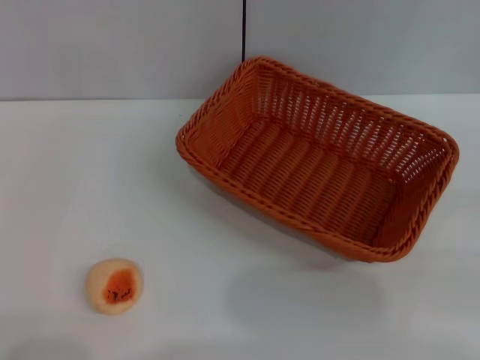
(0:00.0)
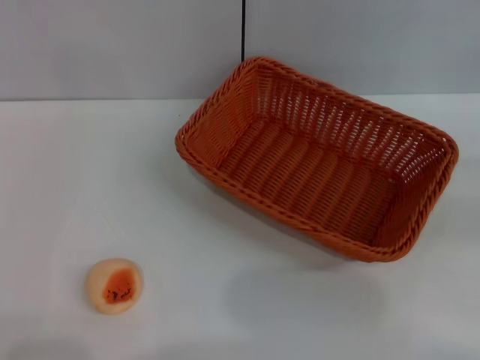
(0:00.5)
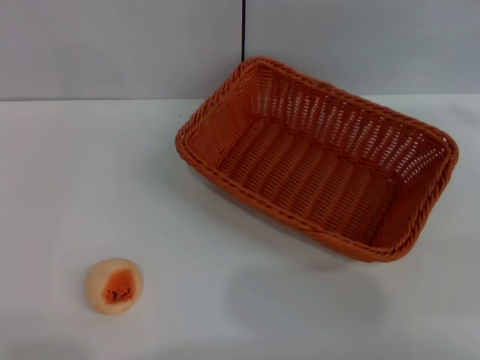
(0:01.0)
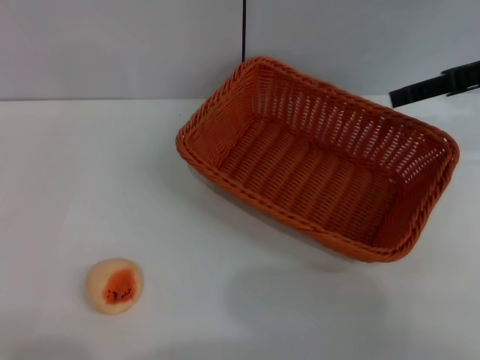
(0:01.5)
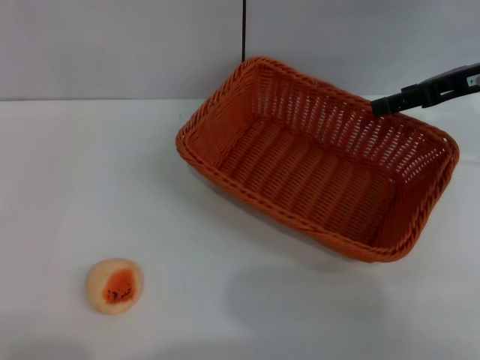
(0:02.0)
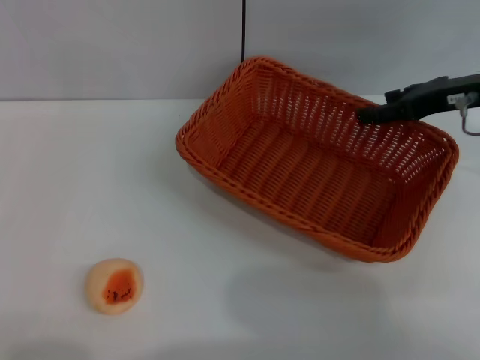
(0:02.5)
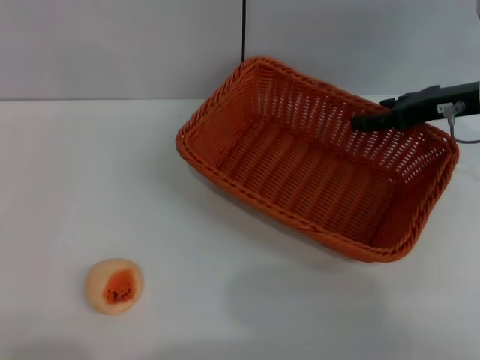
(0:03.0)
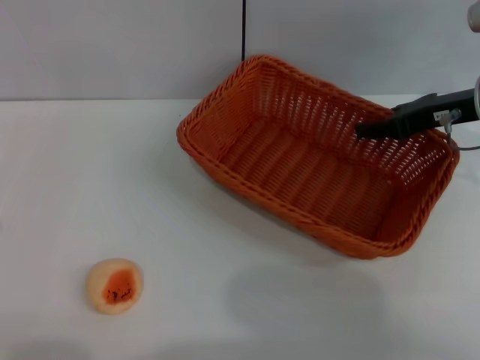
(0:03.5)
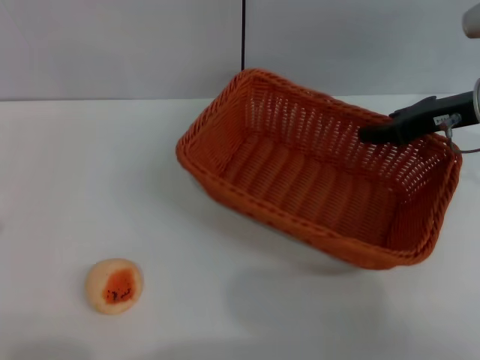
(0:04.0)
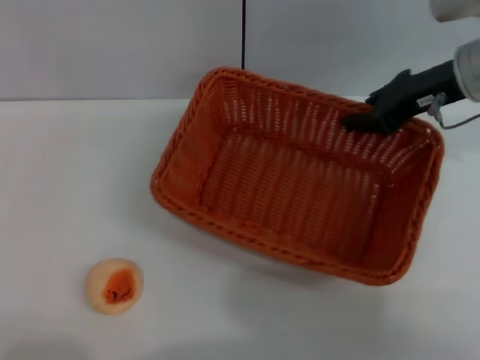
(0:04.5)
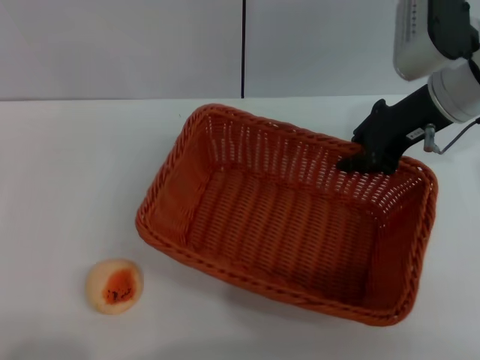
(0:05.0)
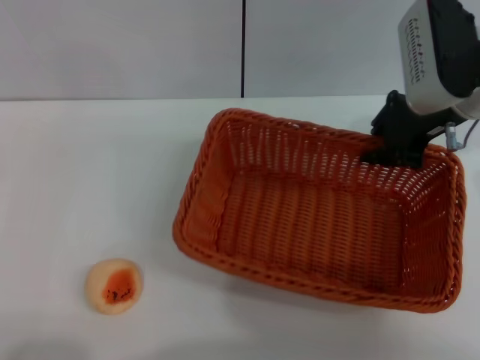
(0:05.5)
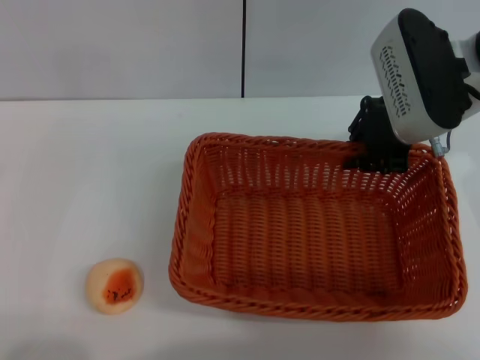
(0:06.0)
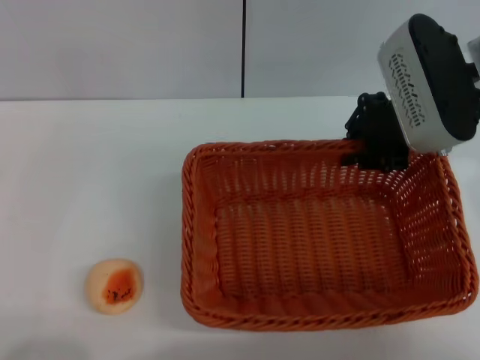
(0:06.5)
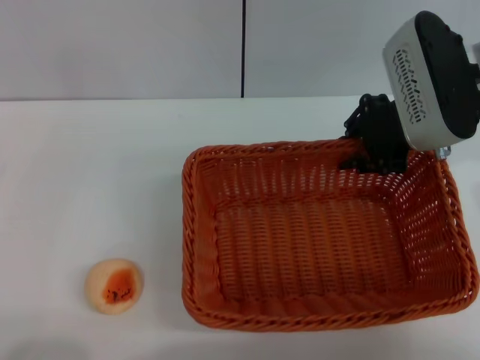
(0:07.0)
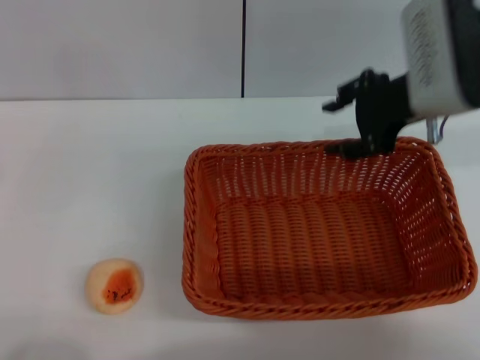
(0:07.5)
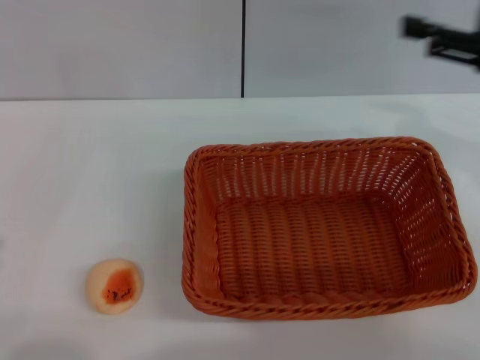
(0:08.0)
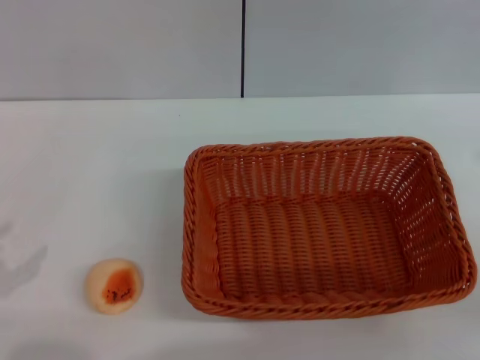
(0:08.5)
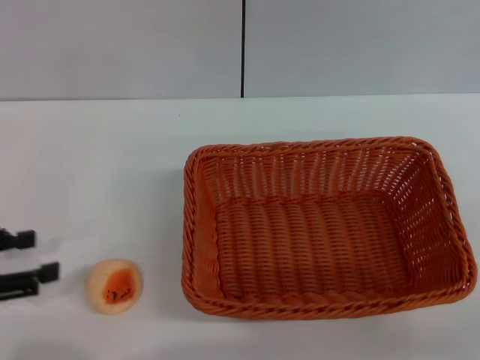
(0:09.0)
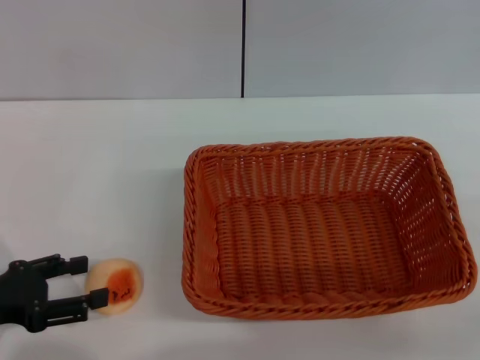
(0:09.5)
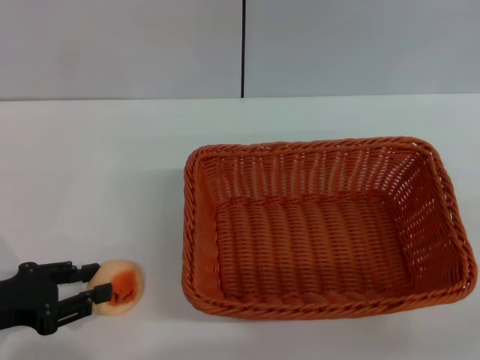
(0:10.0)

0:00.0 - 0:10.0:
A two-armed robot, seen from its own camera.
Step, 0:00.0 - 0:07.5: Move the basket to the center of view with the right gripper.
0:00.0 - 0:02.0: The right gripper heads forward and to the left, covering approximately 30 cm.
0:02.0 - 0:04.0: The right gripper is displaced downward by about 5 cm, and closes up.
0:04.0 - 0:06.0: The right gripper moves to the left, about 10 cm, while the left gripper changes place by about 5 cm.
0:06.0 - 0:08.0: The right gripper goes roughly 15 cm to the right and backward, and opens, while the left gripper changes place by about 5 cm.
0:08.0 - 0:10.0: The right gripper goes roughly 20 cm backward, downward and to the right. The left gripper moves forward and to the right, some 10 cm.

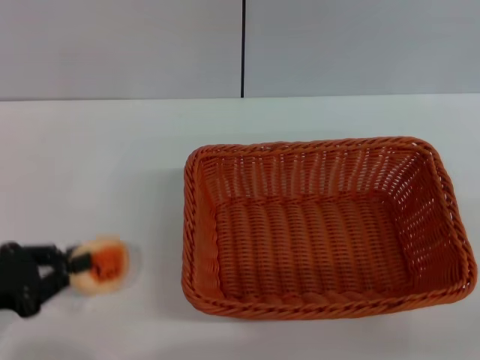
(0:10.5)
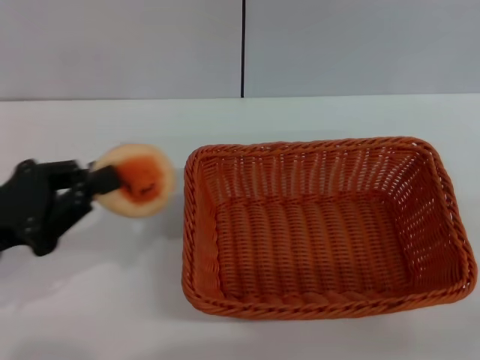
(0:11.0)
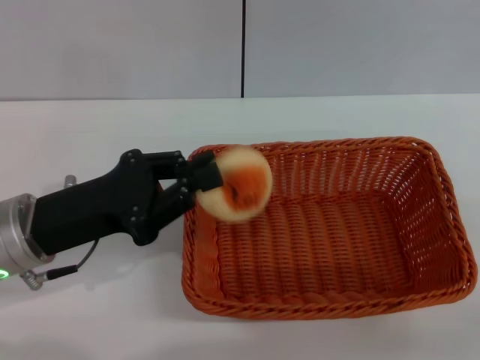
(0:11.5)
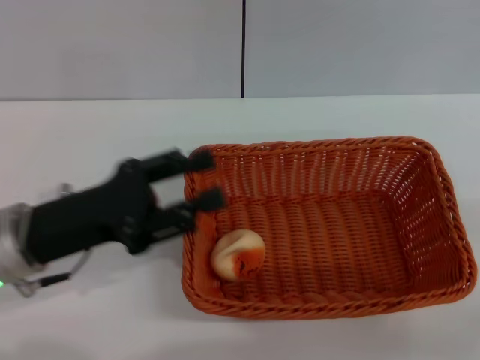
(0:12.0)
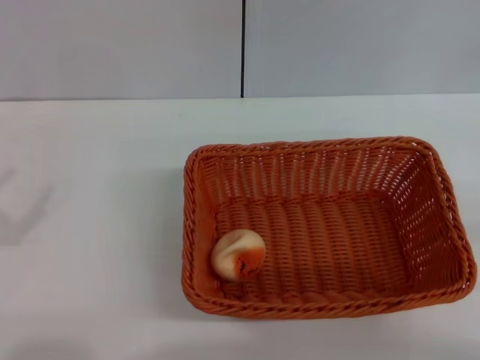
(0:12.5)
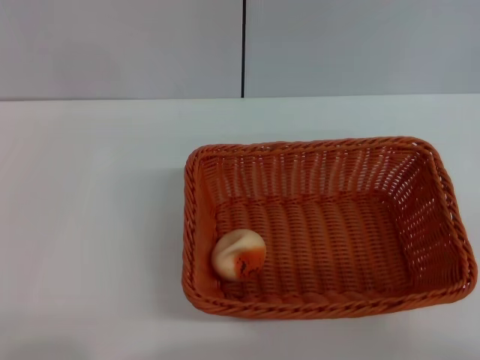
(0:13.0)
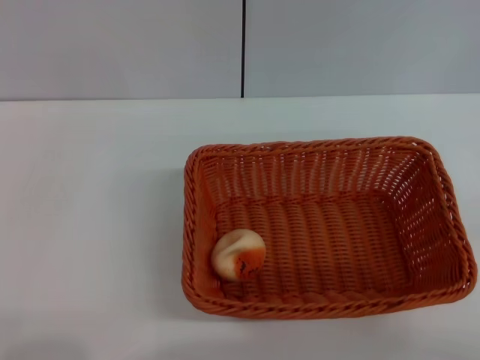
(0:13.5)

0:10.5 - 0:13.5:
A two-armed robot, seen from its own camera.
Step, 0:11.0 - 0:11.5: Place the egg yolk pastry into the basket with the left gripper.
0:10.5 - 0:12.0: The left gripper moves to the right and forward, some 10 cm, and opens up.
0:12.0 - 0:13.5: The right gripper is displaced downward by some 5 cm. The left gripper moves backward and to the left, about 20 cm, and opens.

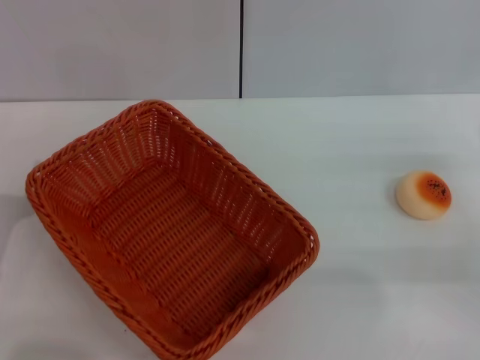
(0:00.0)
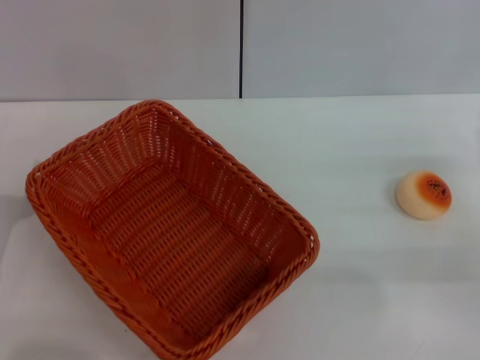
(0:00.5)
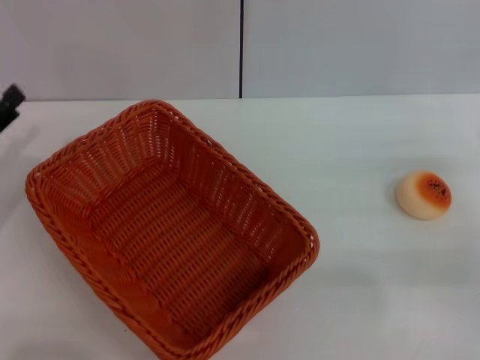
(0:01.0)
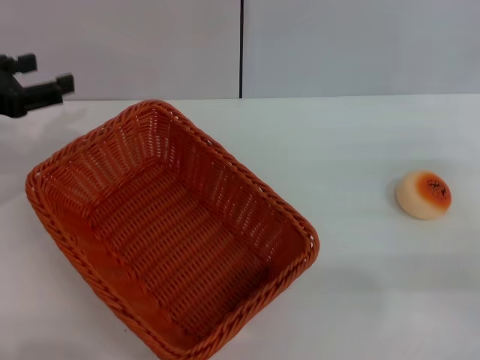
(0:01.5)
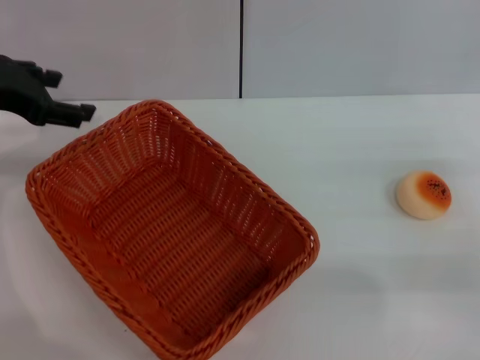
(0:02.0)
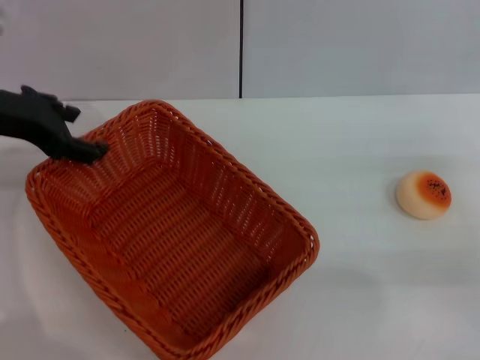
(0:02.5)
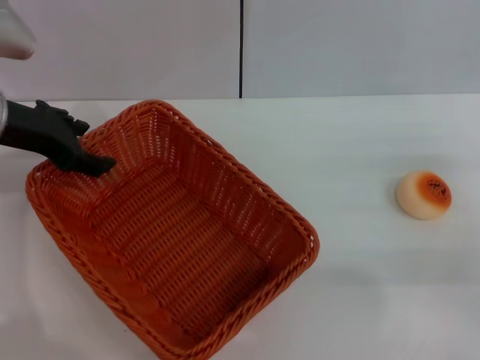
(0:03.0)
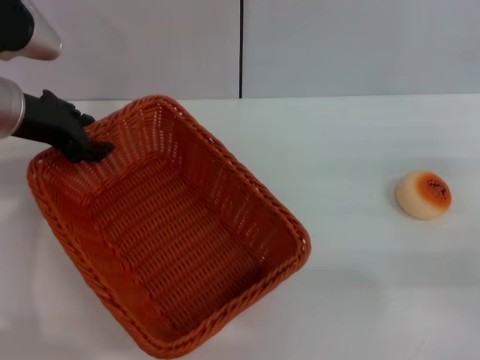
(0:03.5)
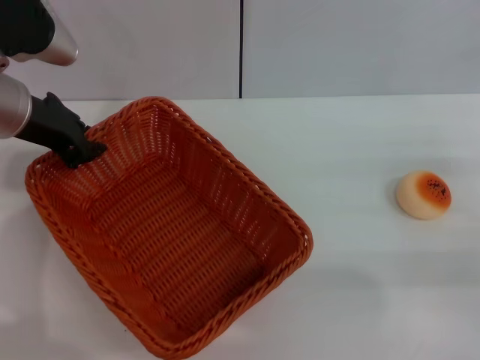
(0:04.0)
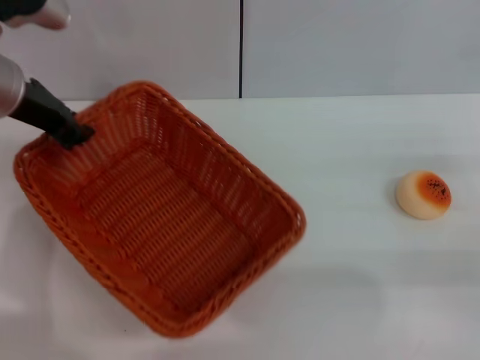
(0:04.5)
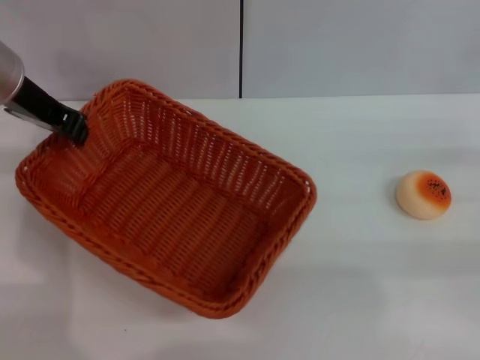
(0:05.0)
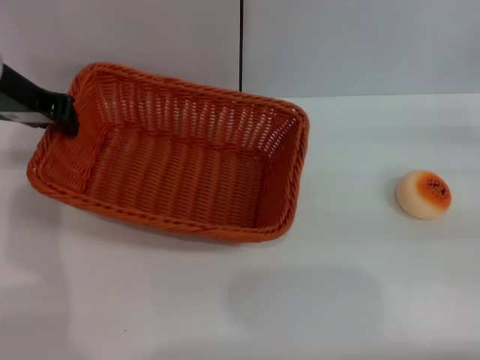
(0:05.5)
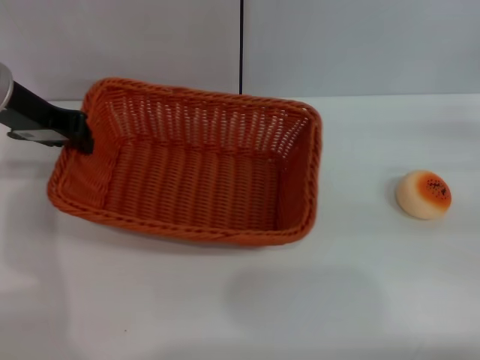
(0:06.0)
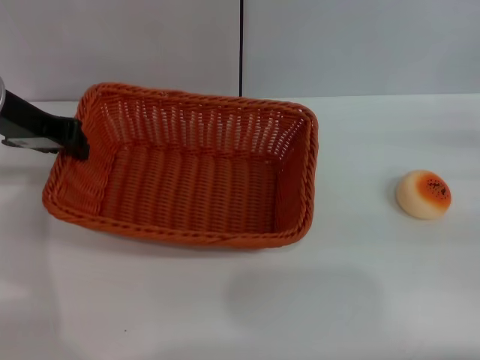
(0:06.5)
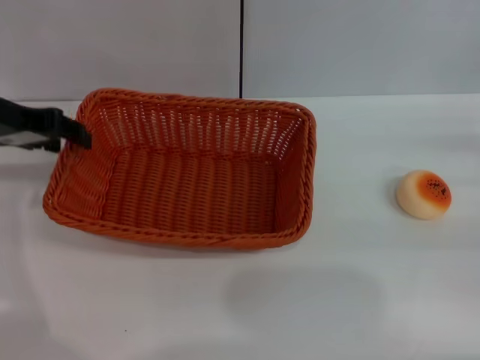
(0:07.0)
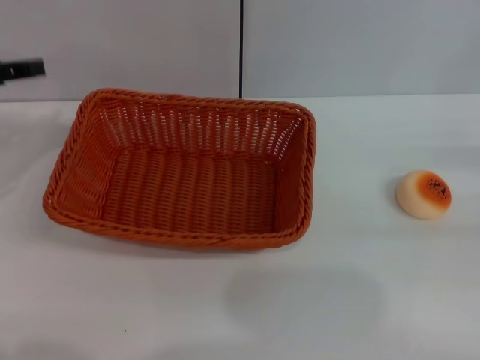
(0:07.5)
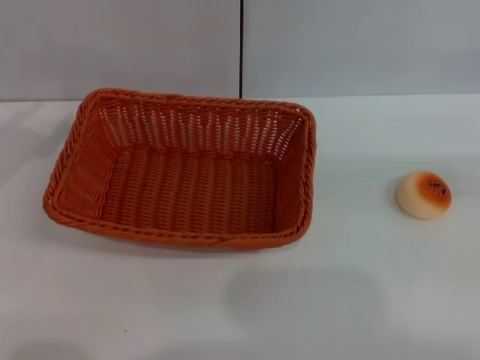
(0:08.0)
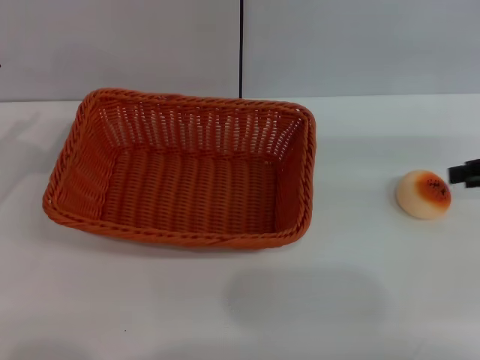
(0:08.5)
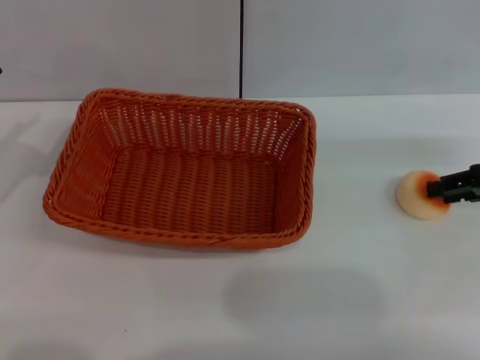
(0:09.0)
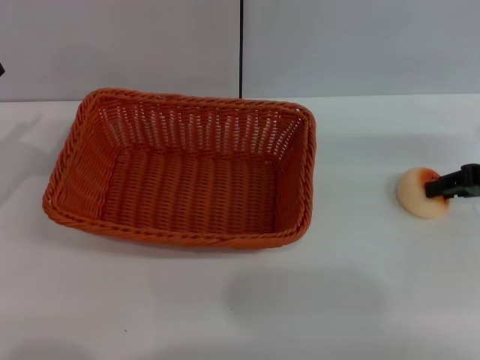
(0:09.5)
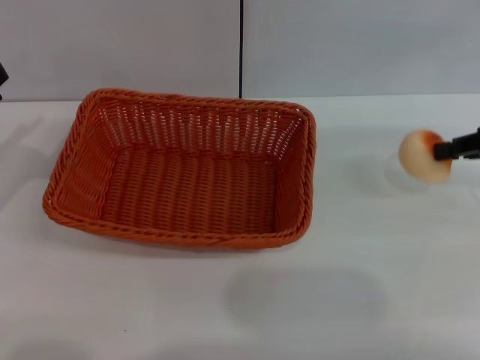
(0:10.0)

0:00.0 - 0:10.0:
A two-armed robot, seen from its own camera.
Step, 0:00.0 - 0:07.0: Move the basket to the center of view with the left gripper.
0:00.0 - 0:02.0: The left gripper travels upward and forward by roughly 25 cm.
0:02.0 - 0:04.0: The left gripper moves to the right, roughly 5 cm, and closes.
0:04.0 - 0:06.0: The right gripper goes approximately 5 cm forward.
0:06.0 - 0:08.0: The right gripper moves upward, approximately 5 cm, while the left gripper is displaced to the left, backward and downward by approximately 15 cm, and opens up.
0:08.0 - 0:10.0: The right gripper is displaced to the left and forward by about 10 cm, and closes.

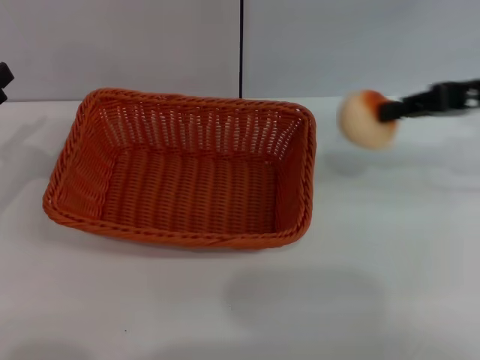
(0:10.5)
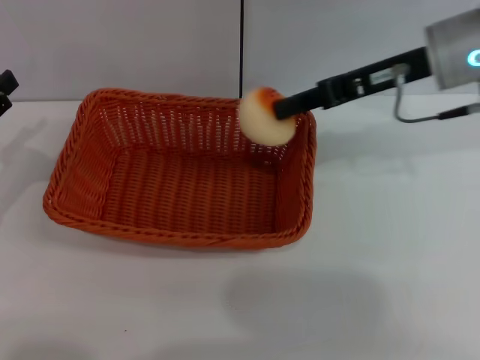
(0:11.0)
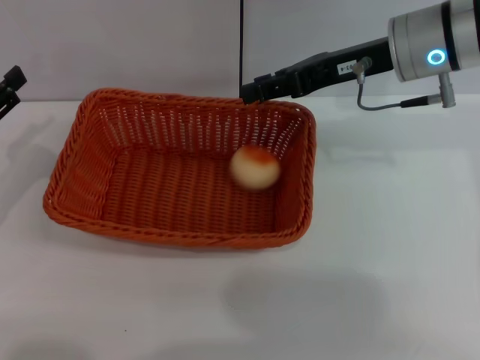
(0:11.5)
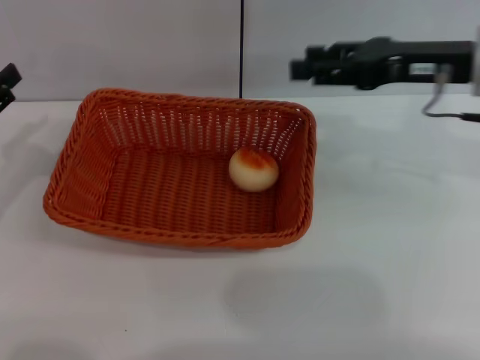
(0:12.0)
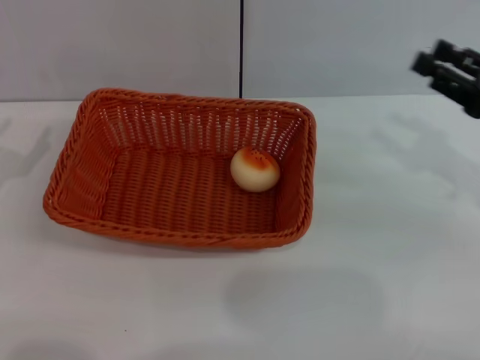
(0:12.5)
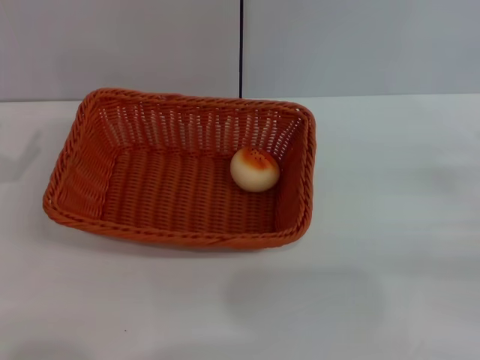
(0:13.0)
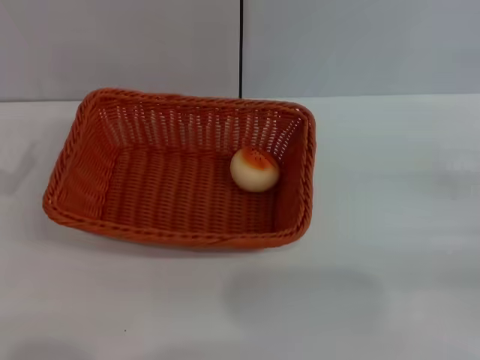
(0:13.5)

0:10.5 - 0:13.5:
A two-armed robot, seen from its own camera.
Step, 0:10.5 - 0:11.5: Place the egg yolk pastry into the basket with the right gripper.
0:10.5 - 0:12.0: The right gripper moves to the left, approximately 5 cm, and opens.
0:12.0 - 0:13.5: The left gripper moves roughly 5 cm. The right gripper travels to the right, backward and downward by about 25 cm.
